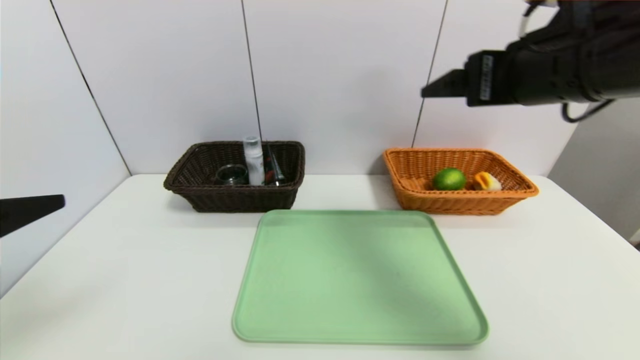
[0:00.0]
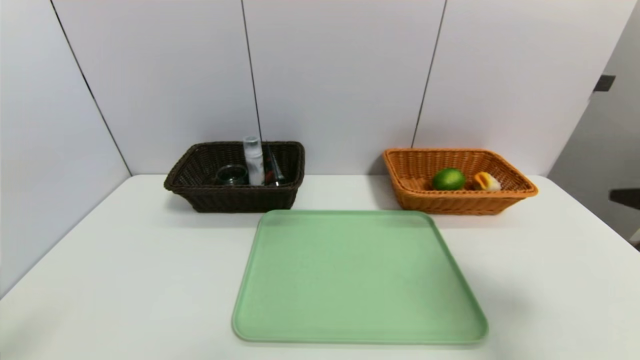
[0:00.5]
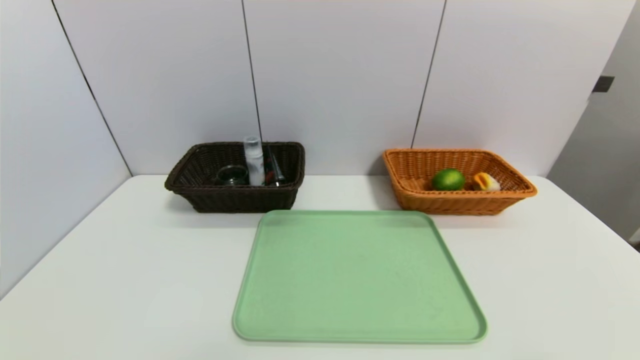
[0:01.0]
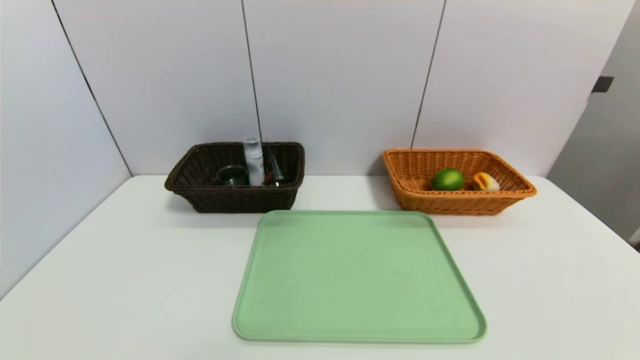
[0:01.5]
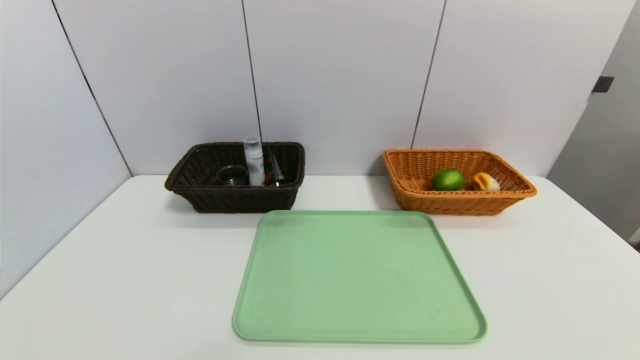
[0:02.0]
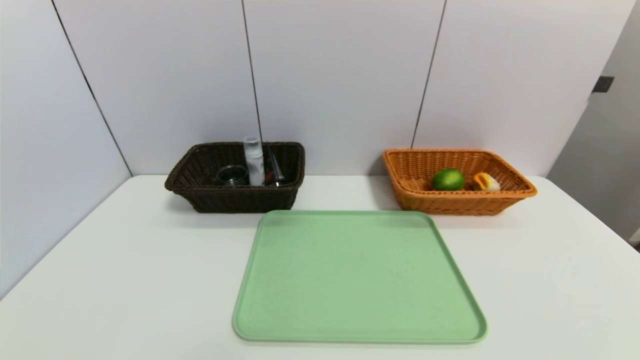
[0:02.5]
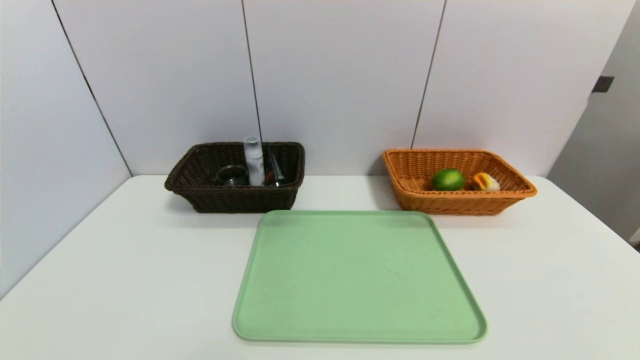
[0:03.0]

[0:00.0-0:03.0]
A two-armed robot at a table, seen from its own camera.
Task of the whole recording: place the food in the right basket with the right gripper, and place the non food items in the left basket with the left gripper.
0:00.0 to 0:01.5: The right gripper heads backward, downward and to the right, covering roughly 40 cm. Meanwhile the left gripper goes approximately 20 cm backward and downward.
